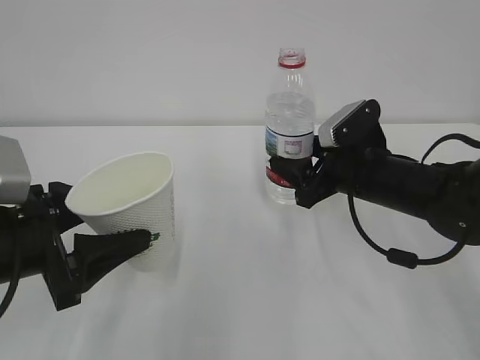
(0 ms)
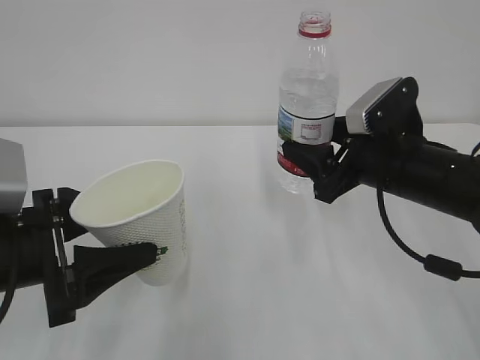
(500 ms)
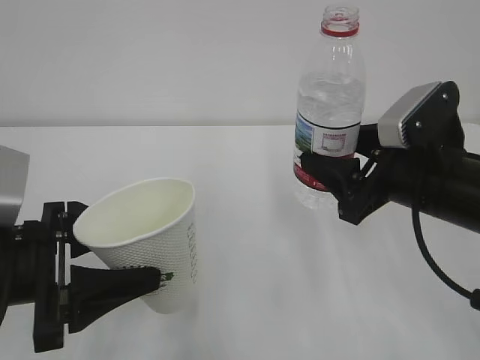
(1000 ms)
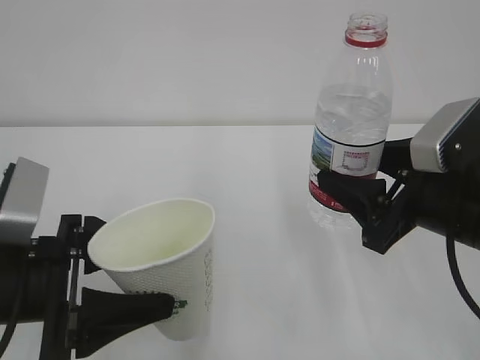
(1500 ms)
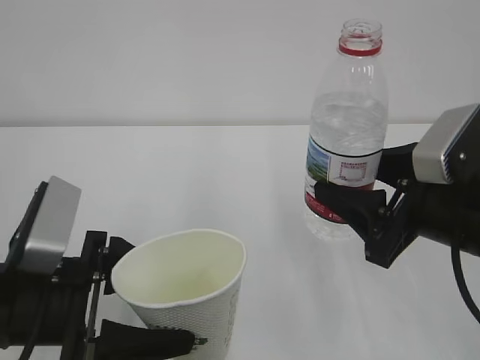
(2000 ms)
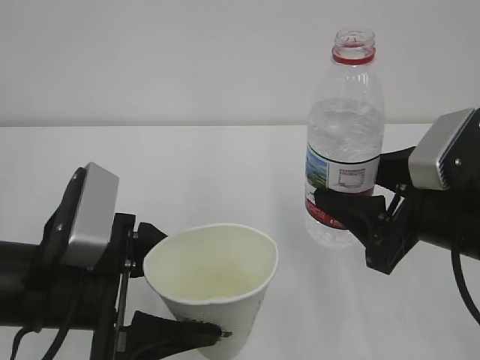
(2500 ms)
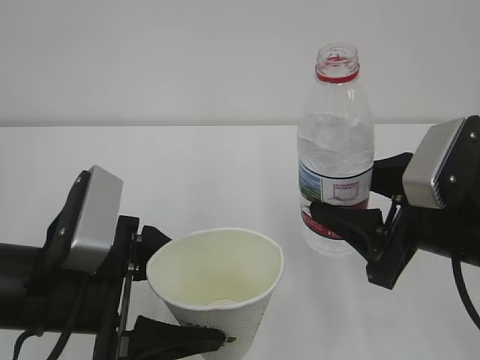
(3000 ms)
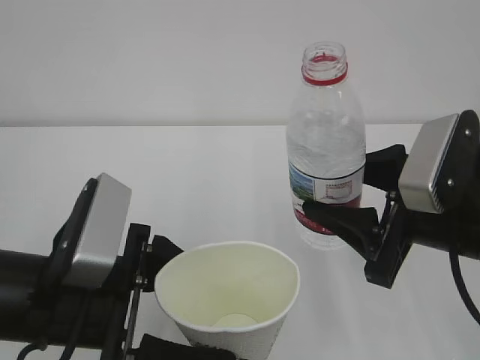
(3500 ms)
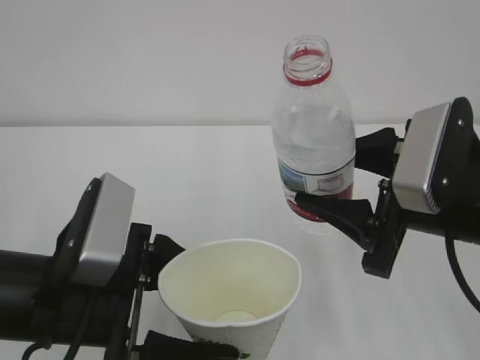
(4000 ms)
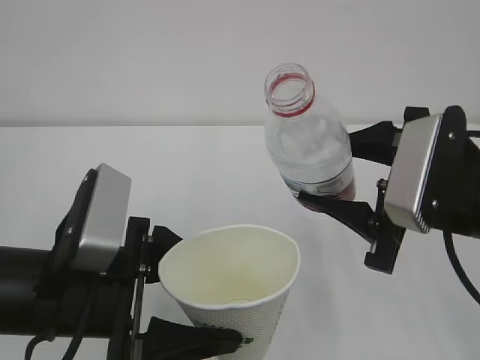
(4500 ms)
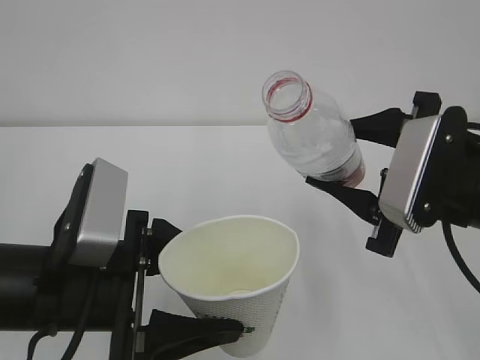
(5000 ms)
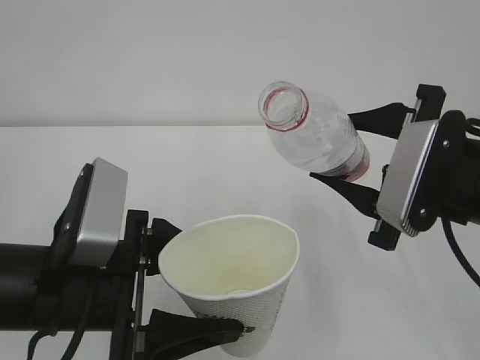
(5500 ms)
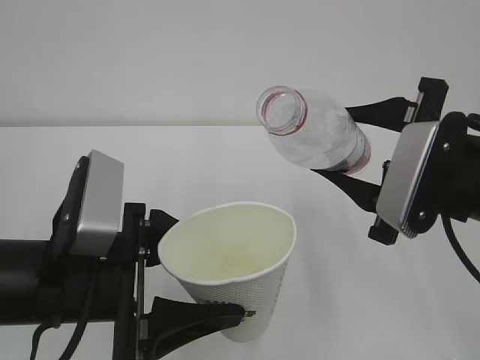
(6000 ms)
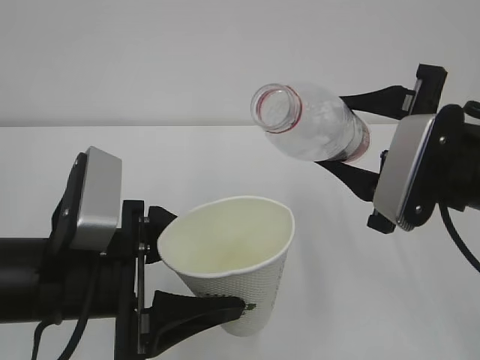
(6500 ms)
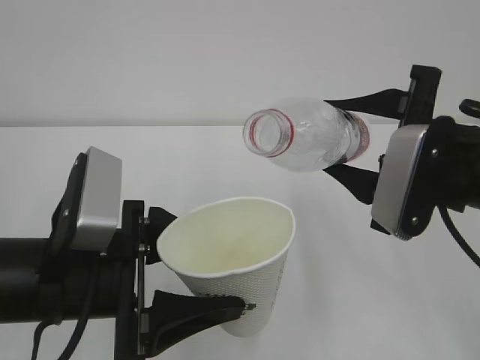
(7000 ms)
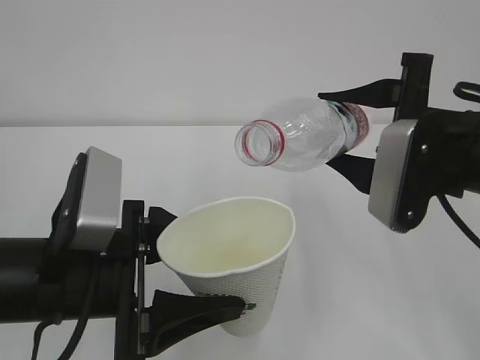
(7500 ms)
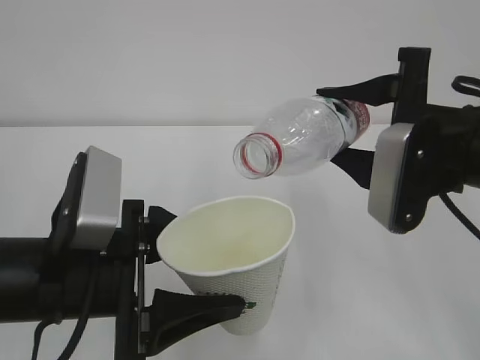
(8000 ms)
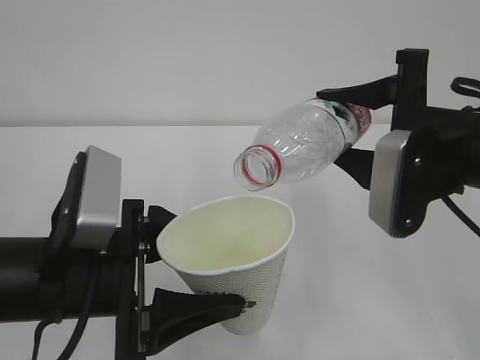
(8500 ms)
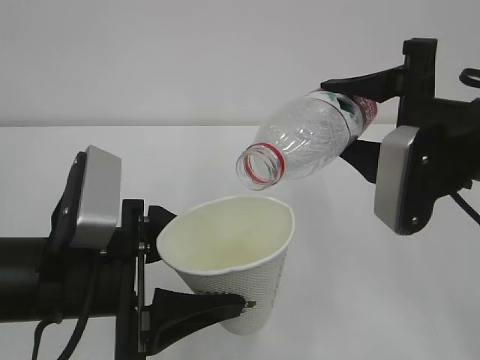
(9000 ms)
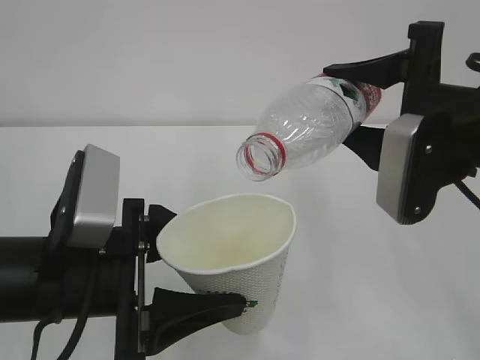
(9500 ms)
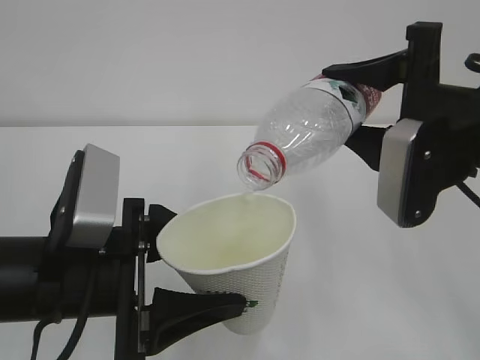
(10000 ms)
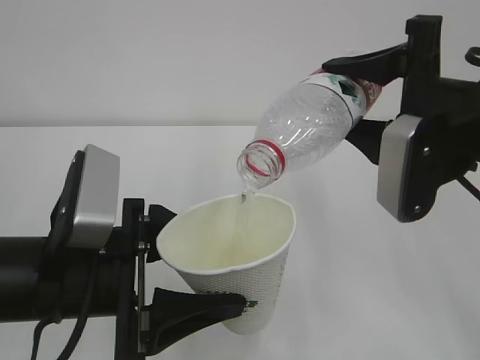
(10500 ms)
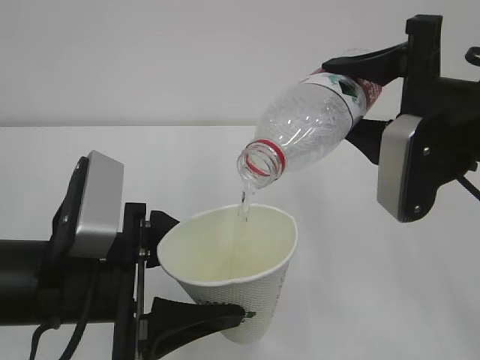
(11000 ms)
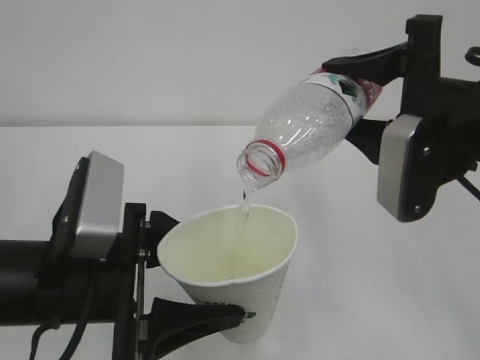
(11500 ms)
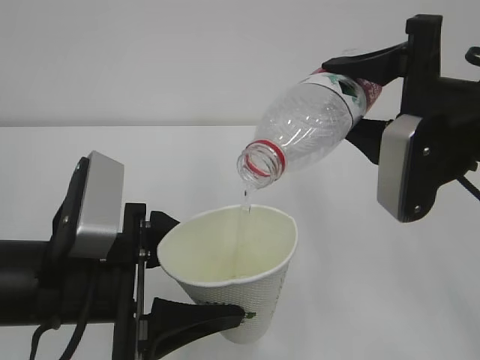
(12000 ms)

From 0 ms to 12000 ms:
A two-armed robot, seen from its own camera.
From 0 ms to 2000 ms: The left gripper shifts by some 5 cm; the right gripper goes roughly 15 cm backward and upward.
From 8000 ms to 10000 ms: The grippers stay close to where they were, moving slightly.
From 10000 ms to 12000 ms: Both grippers stay about where they are.

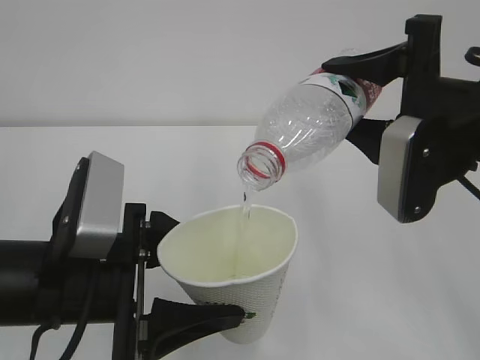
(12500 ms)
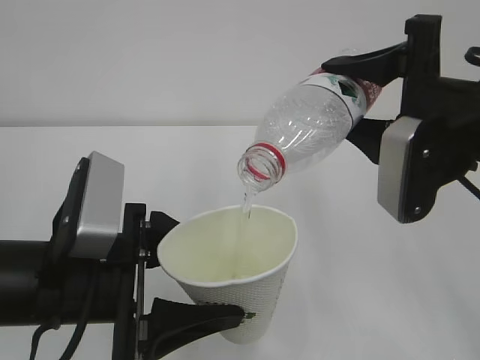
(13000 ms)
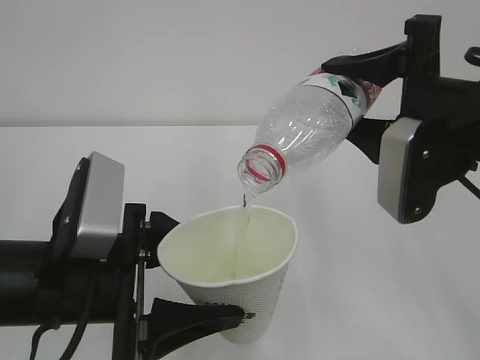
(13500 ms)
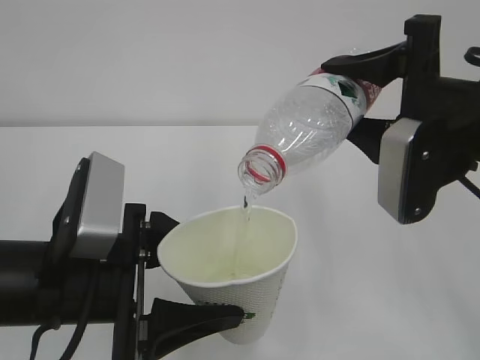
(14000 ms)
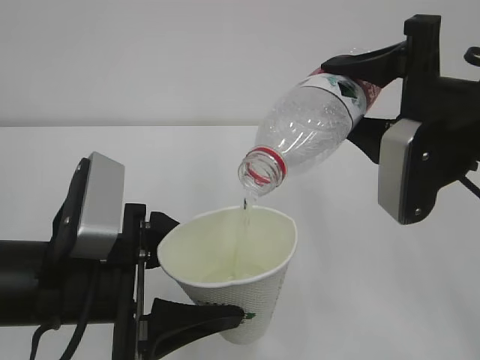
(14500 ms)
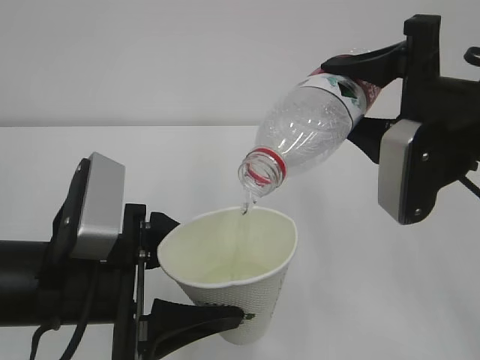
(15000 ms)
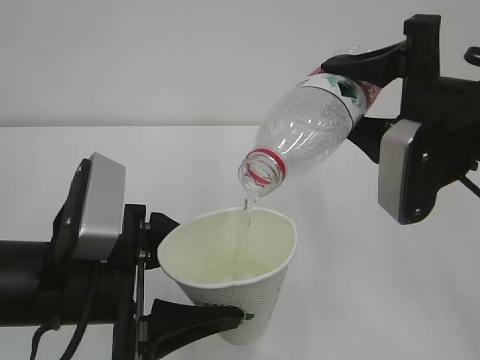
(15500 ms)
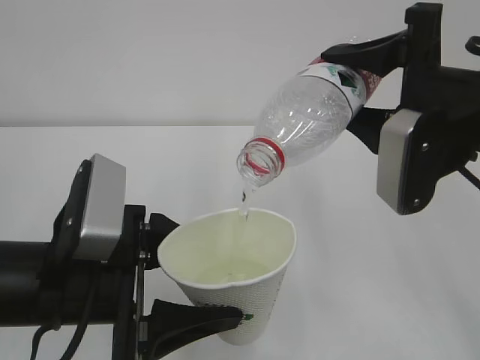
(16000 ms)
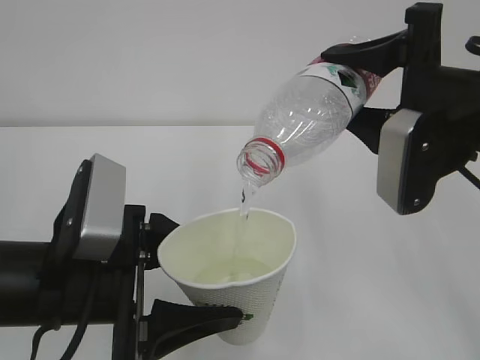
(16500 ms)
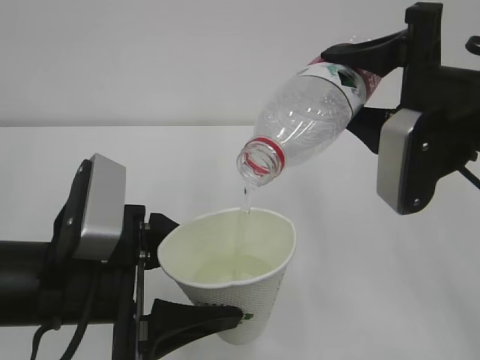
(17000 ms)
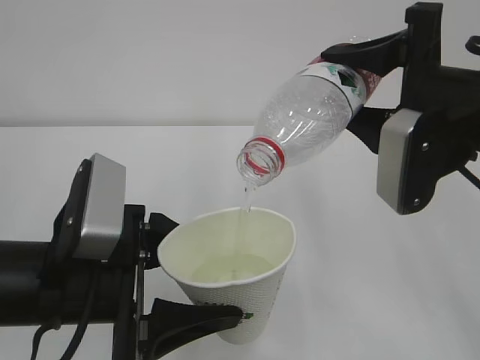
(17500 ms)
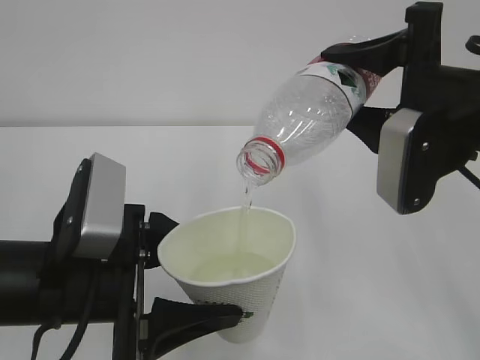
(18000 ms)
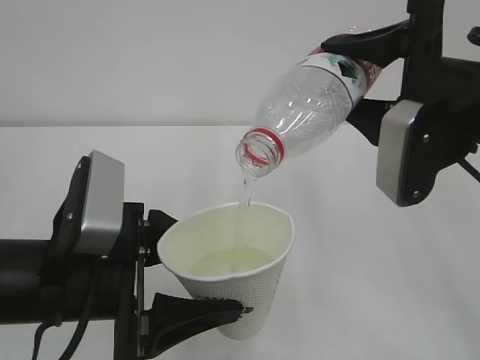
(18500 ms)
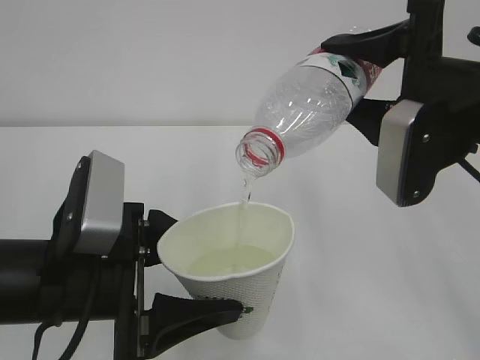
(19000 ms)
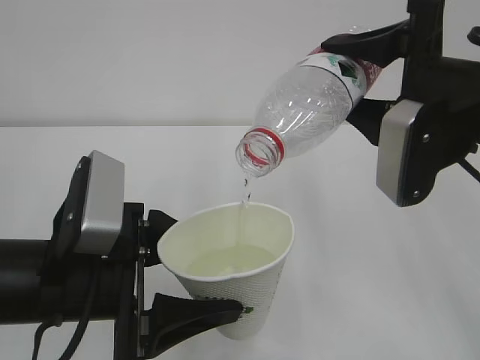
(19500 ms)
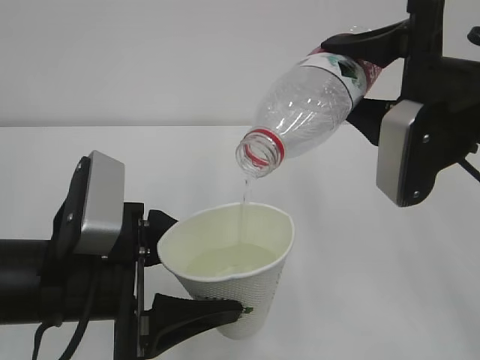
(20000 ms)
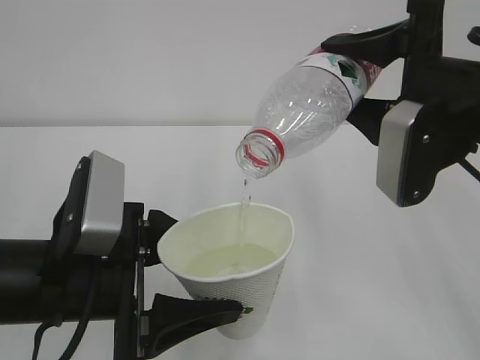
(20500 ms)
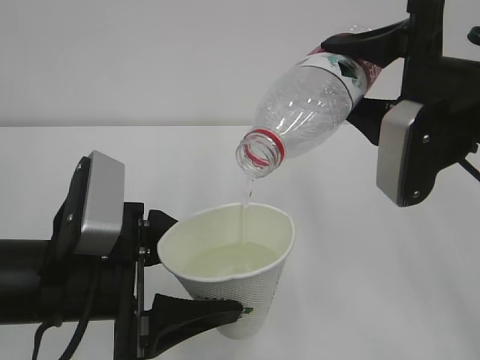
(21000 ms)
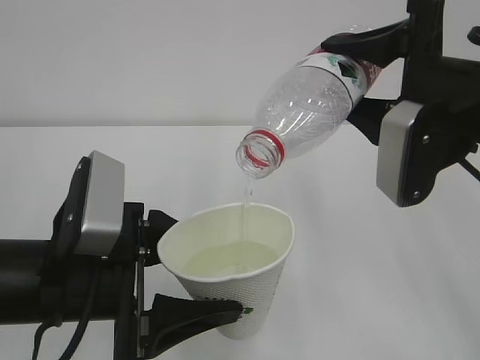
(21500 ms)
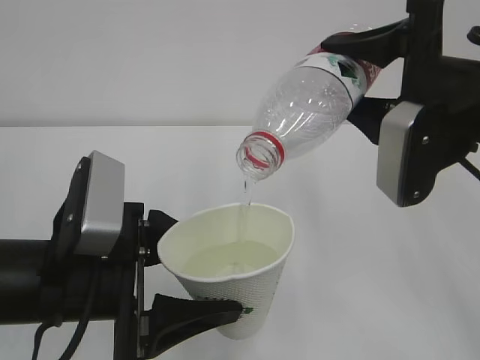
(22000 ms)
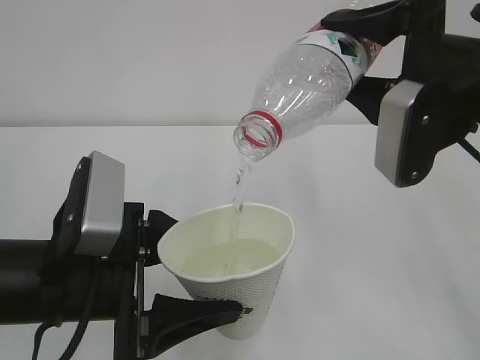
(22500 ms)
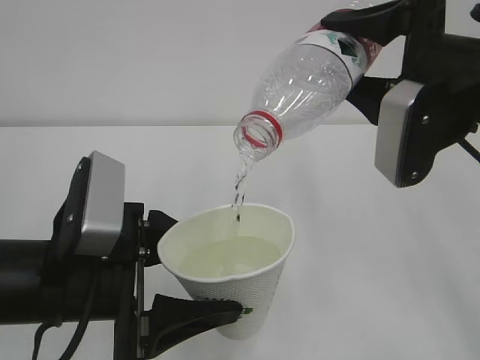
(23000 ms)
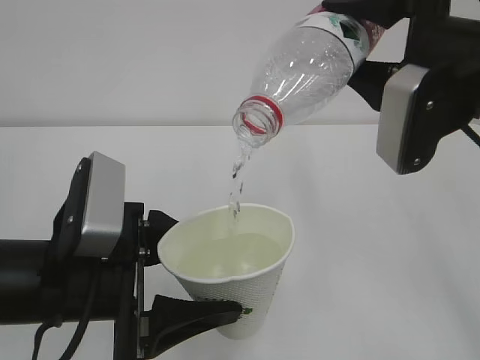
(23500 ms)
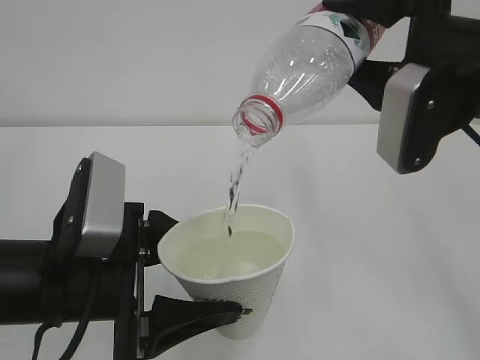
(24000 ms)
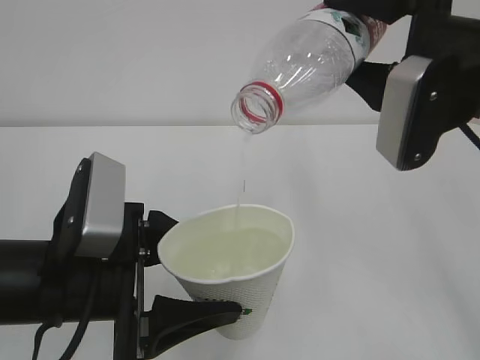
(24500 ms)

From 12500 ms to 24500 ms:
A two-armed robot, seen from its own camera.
From 12500 ms to 20500 ms: Both grippers stay put.
From 20500 ms to 22500 ms: The two grippers keep their place.
From 22500 ms to 24500 ms: Both grippers stay put.

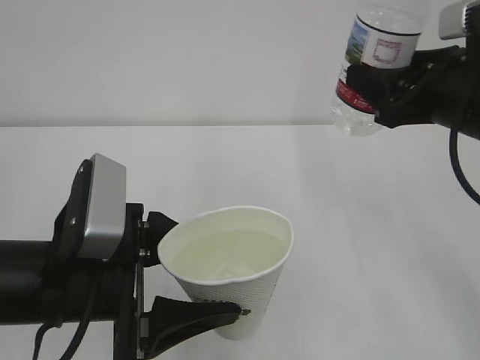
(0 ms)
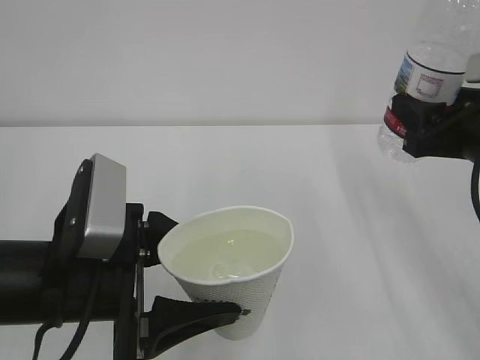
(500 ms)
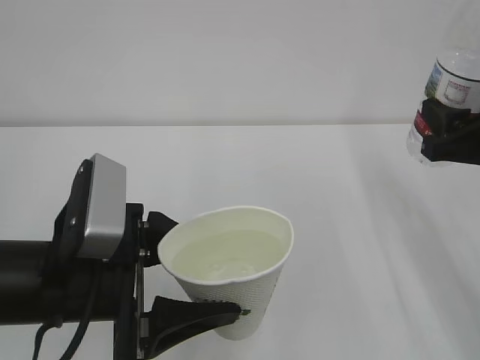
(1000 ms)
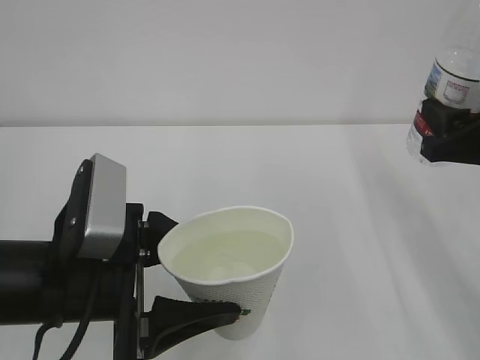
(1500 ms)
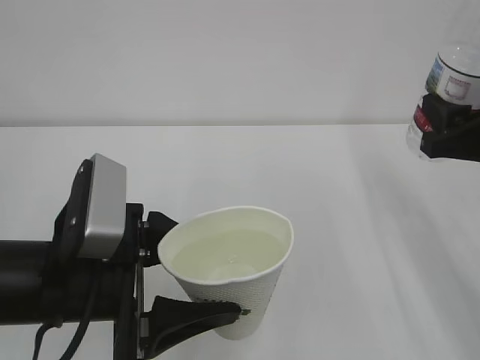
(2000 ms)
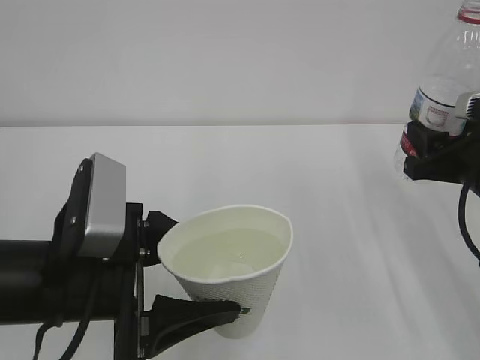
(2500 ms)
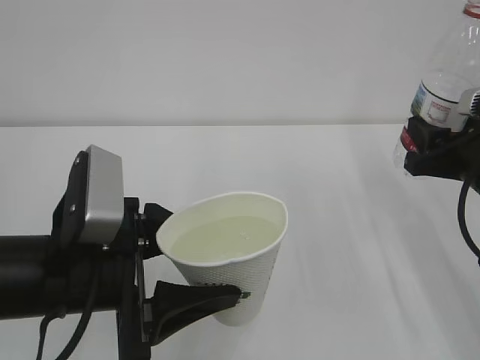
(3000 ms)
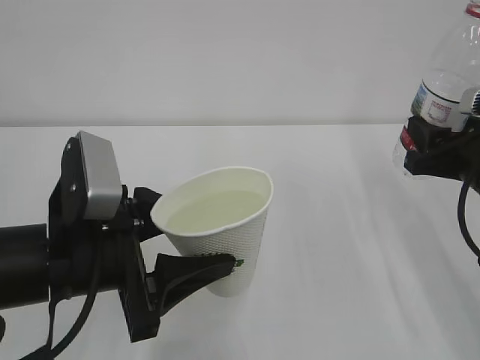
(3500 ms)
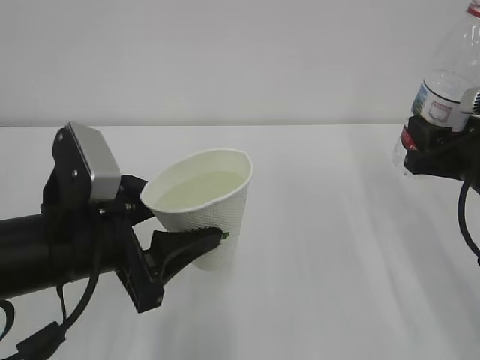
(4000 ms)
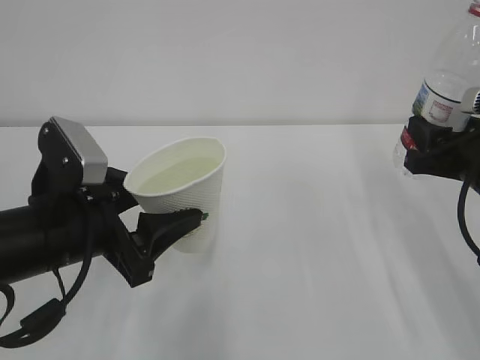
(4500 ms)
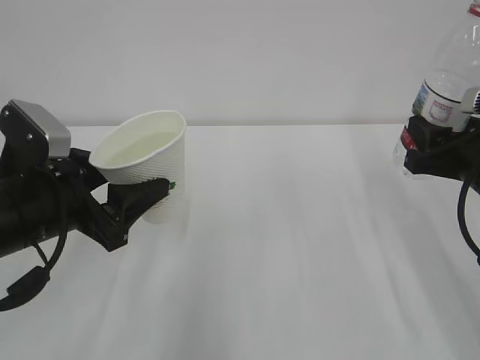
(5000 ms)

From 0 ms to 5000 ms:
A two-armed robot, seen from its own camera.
From 0 ms to 2500 ms: The right gripper heads downward, covering about 10 cm.
From 2500 ms to 5000 ms: The left gripper goes roughly 10 cm forward and to the left.
